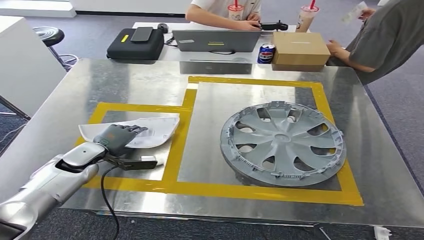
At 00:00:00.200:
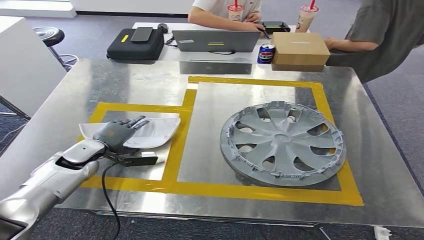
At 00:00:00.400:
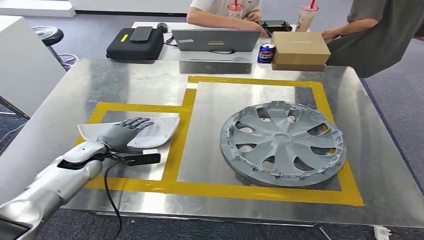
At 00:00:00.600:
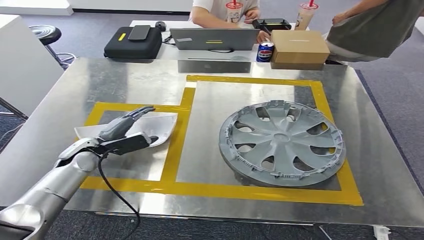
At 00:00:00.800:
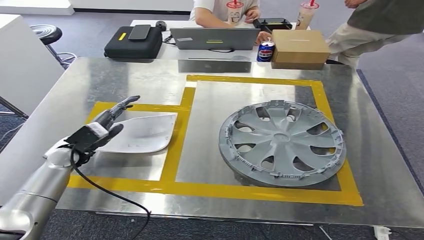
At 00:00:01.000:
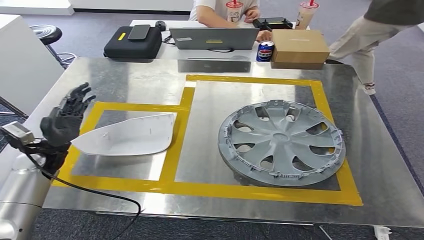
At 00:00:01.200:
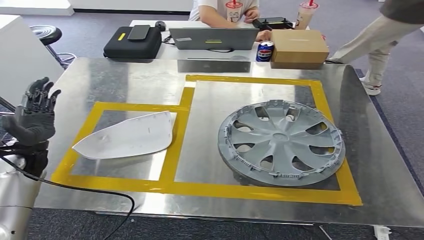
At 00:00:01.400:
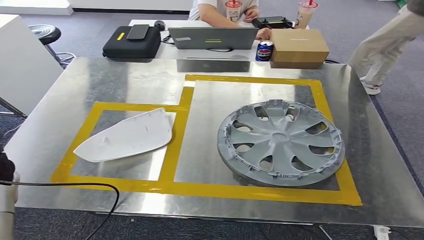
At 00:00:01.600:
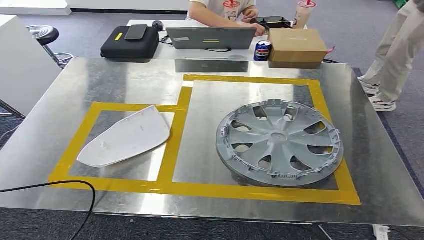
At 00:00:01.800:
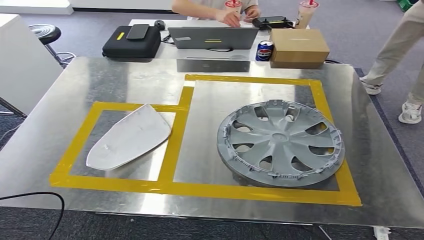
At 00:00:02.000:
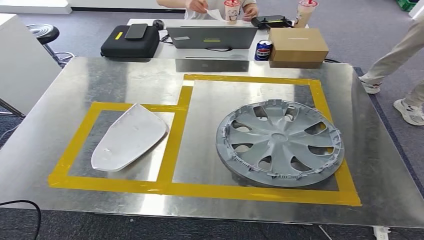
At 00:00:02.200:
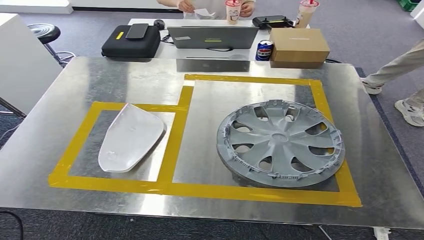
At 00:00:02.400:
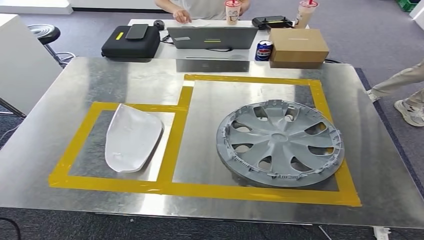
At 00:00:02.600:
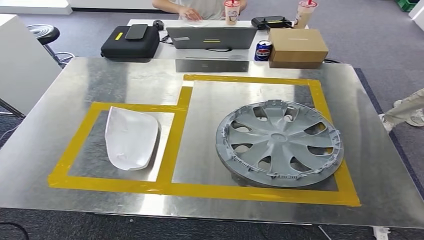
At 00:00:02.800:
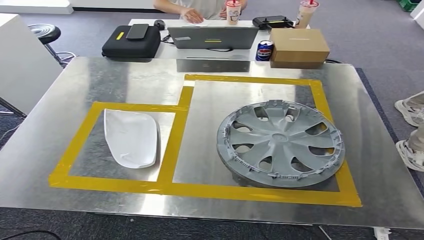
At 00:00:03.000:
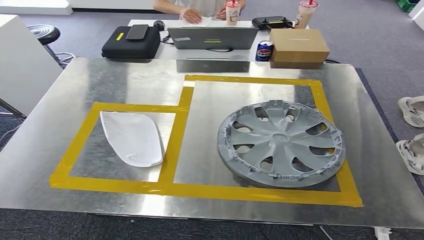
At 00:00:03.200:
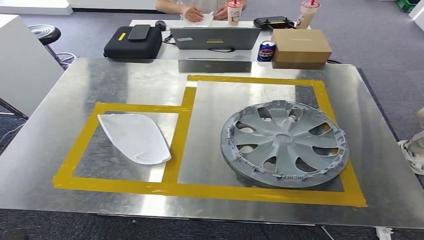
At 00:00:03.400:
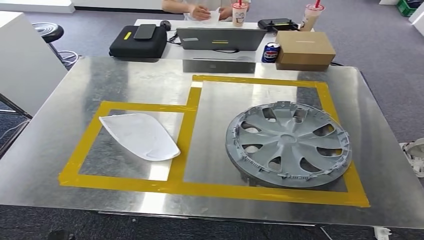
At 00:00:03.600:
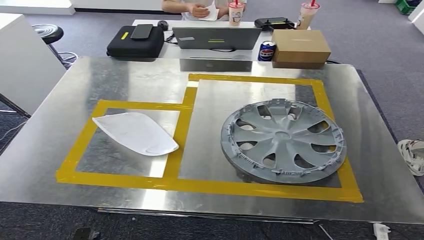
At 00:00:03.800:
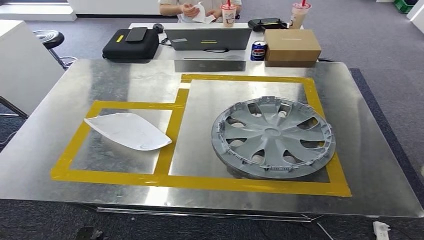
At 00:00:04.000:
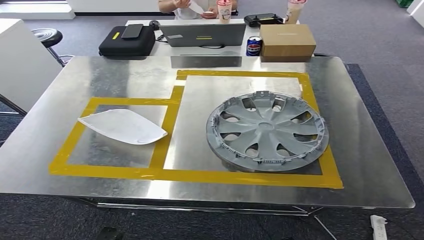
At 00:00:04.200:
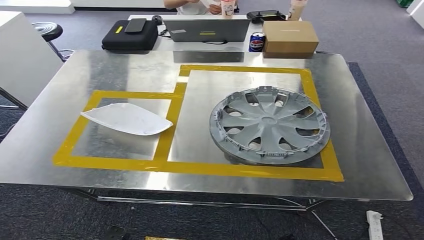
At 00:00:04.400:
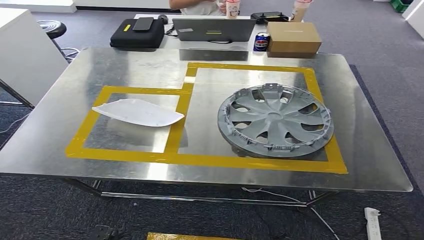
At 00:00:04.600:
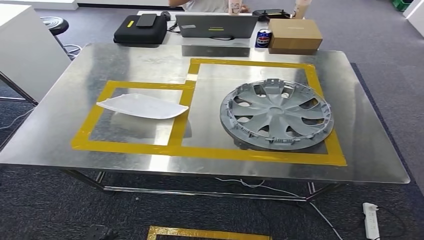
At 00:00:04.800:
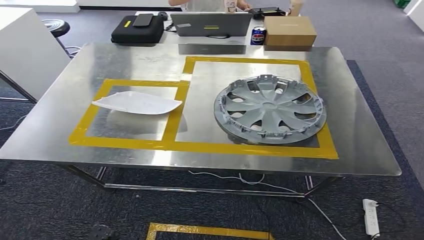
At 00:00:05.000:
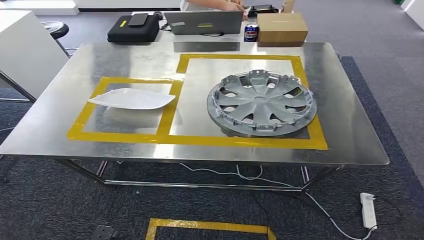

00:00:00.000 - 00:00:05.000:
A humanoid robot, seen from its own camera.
Step, 00:00:00.000 - 00:00:03.800: Insert the small component into the corresponding slot on the workbench.
Step, 00:00:04.000 - 00:00:04.800: Return to the initial position at the workbench.
